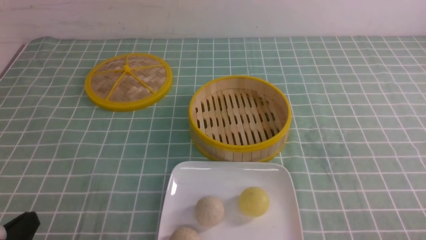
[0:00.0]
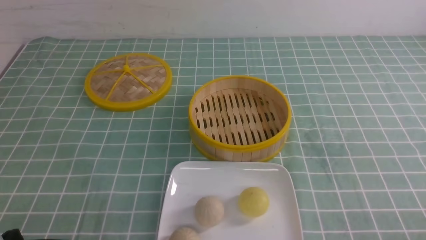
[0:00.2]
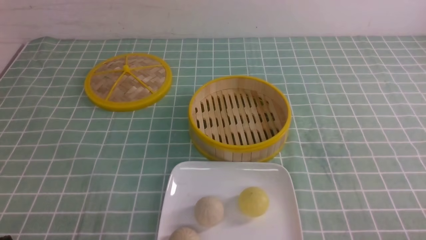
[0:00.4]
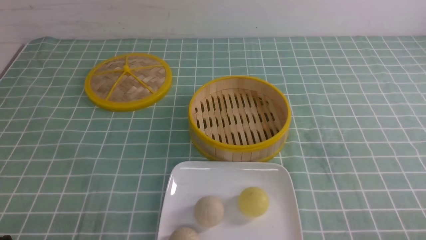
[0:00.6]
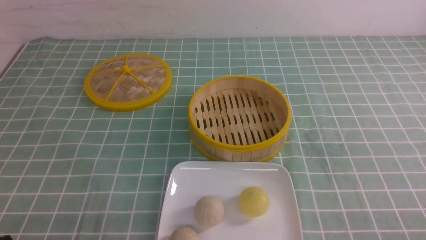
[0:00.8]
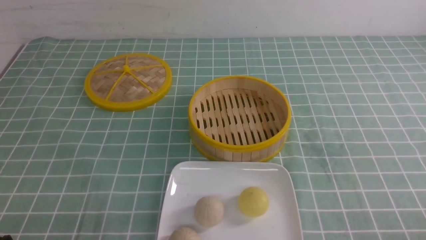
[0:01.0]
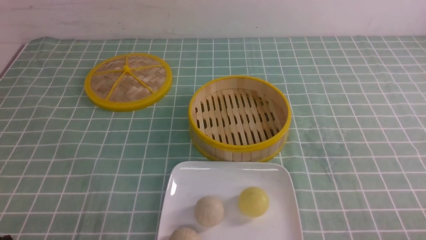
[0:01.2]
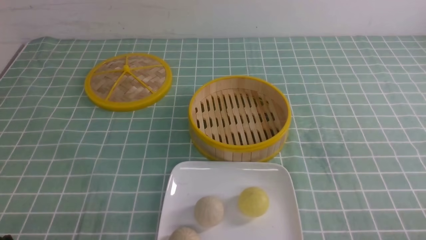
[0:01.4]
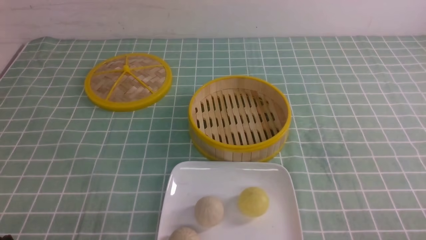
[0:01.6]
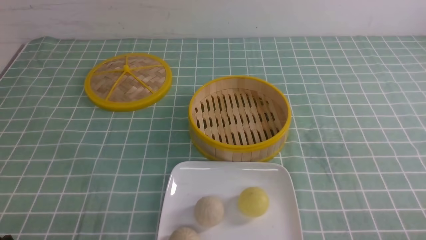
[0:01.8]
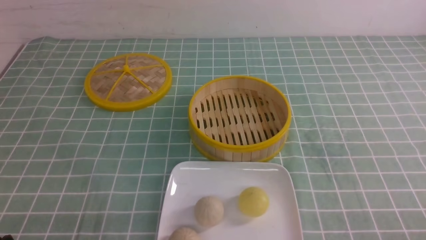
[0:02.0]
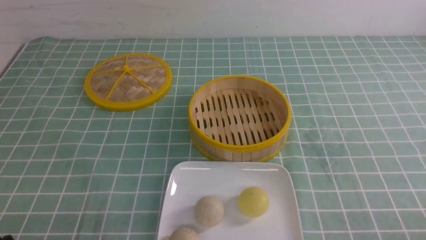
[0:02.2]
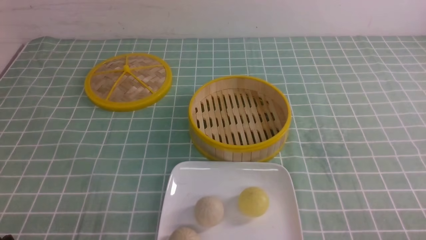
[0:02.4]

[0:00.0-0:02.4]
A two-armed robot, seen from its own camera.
0:01.2 to 0:02.4: Both grippers stay about where they are.
